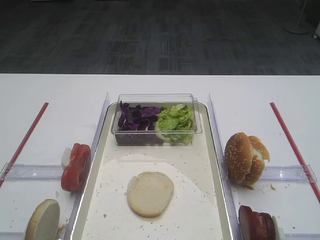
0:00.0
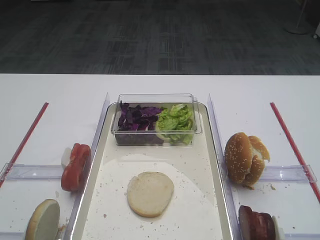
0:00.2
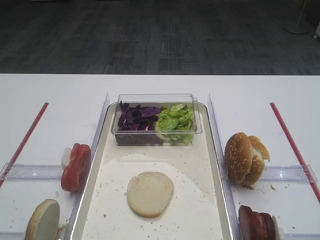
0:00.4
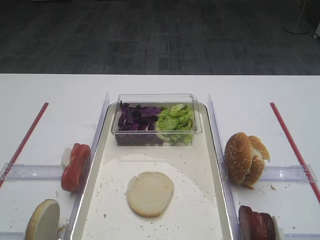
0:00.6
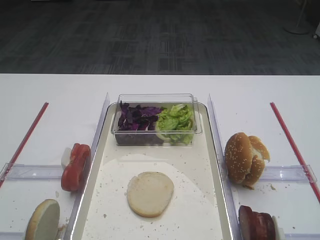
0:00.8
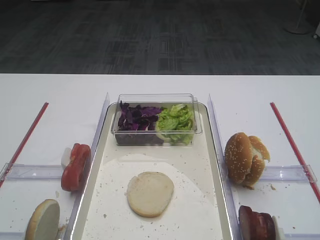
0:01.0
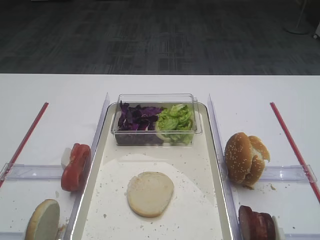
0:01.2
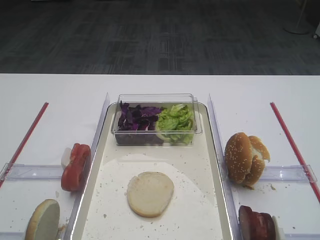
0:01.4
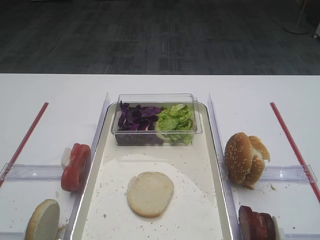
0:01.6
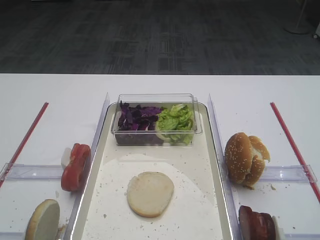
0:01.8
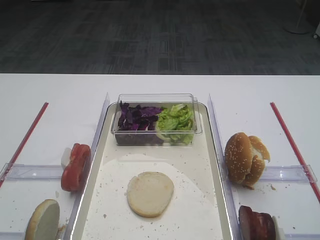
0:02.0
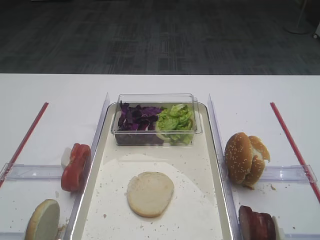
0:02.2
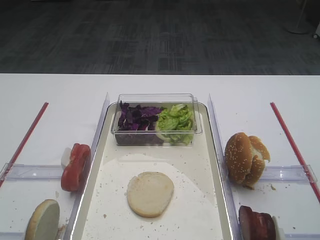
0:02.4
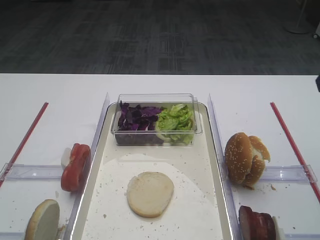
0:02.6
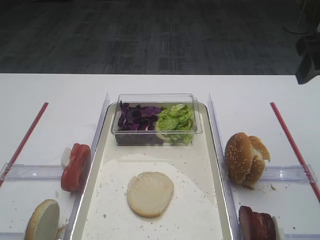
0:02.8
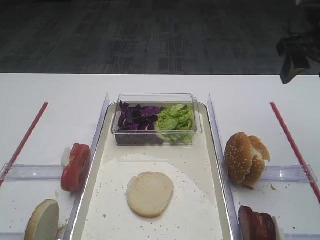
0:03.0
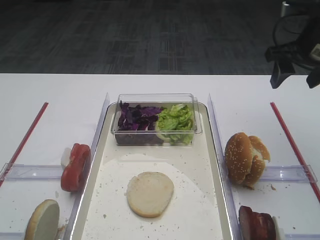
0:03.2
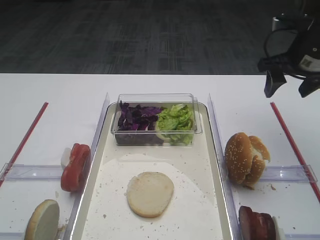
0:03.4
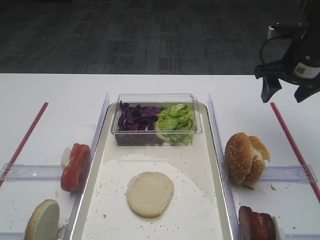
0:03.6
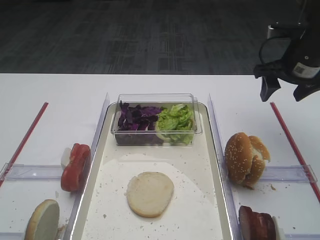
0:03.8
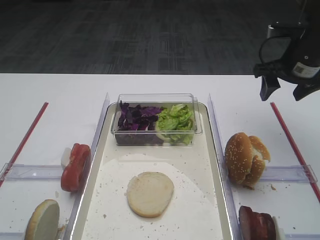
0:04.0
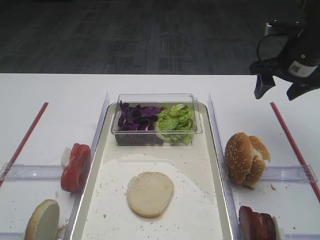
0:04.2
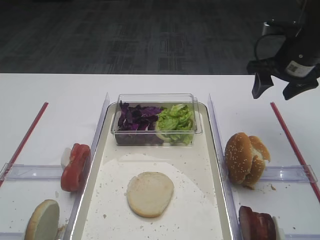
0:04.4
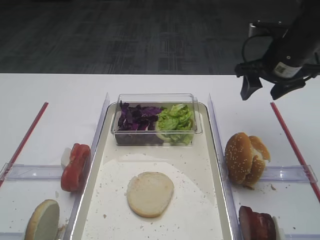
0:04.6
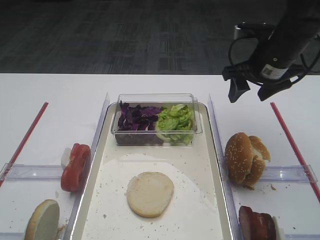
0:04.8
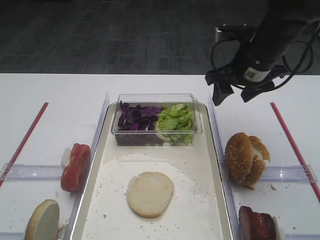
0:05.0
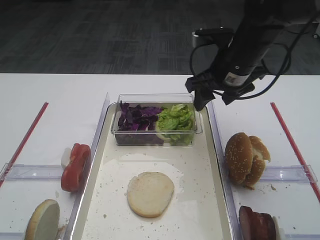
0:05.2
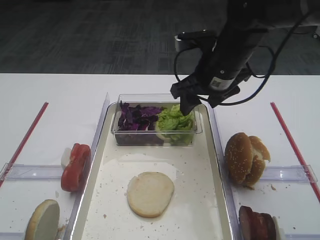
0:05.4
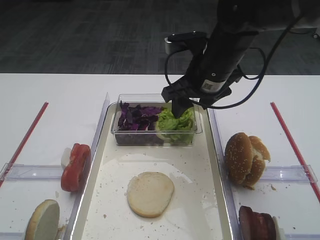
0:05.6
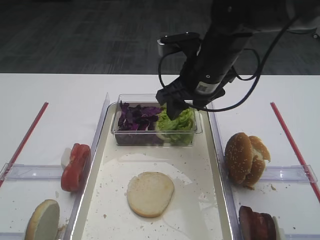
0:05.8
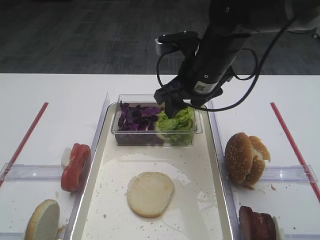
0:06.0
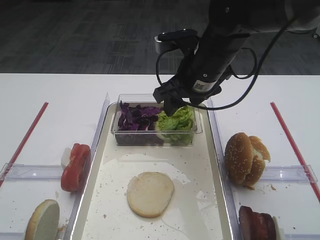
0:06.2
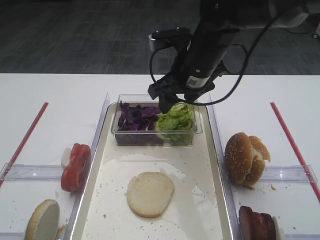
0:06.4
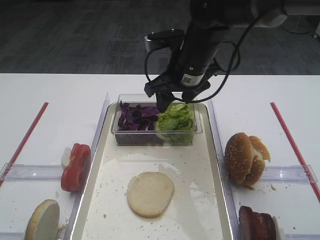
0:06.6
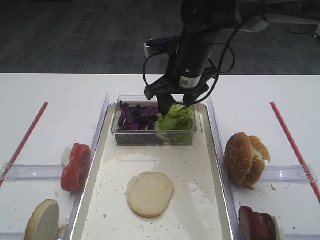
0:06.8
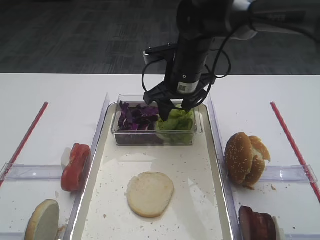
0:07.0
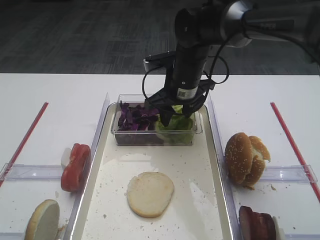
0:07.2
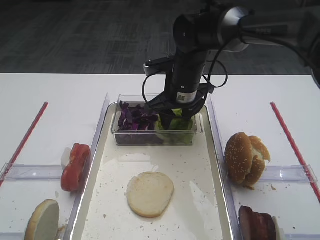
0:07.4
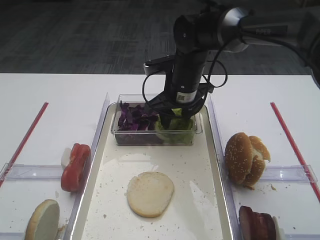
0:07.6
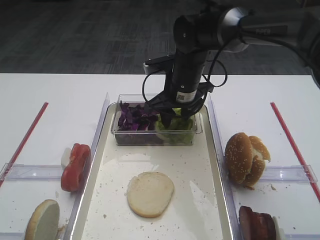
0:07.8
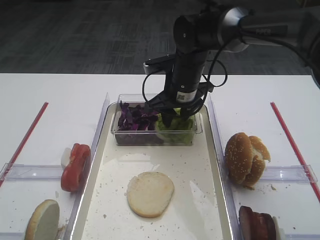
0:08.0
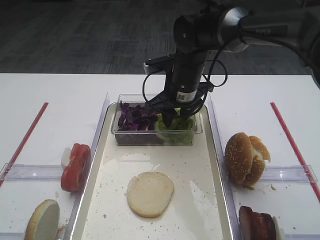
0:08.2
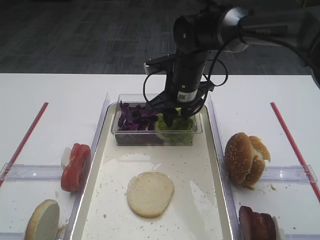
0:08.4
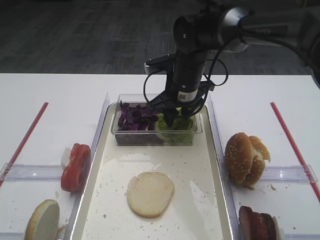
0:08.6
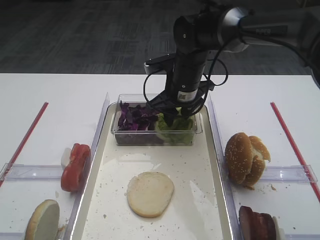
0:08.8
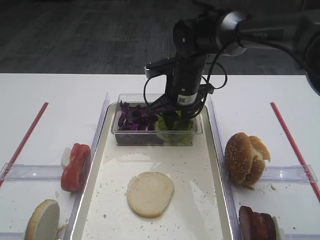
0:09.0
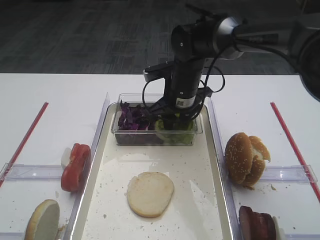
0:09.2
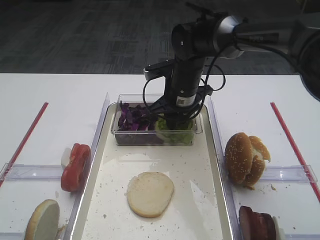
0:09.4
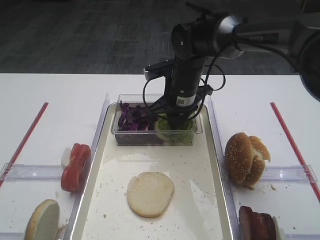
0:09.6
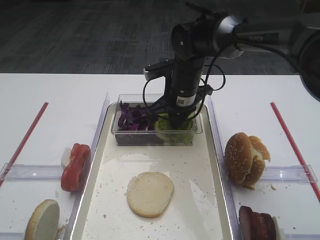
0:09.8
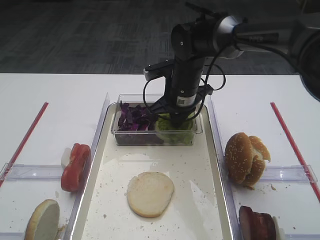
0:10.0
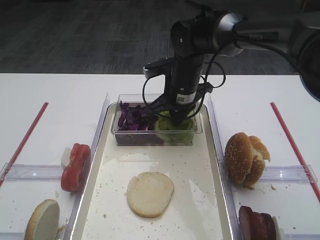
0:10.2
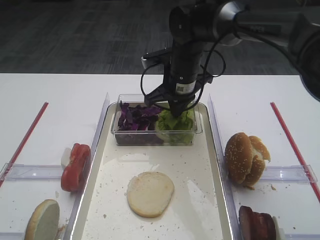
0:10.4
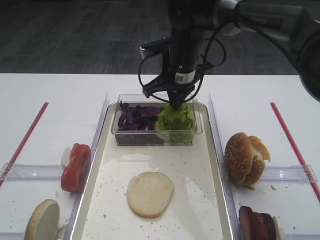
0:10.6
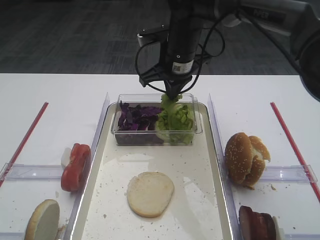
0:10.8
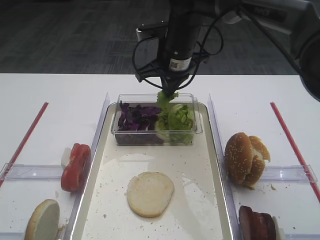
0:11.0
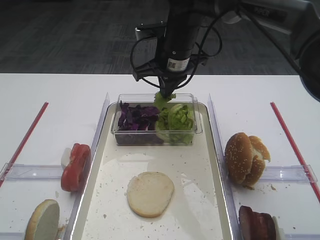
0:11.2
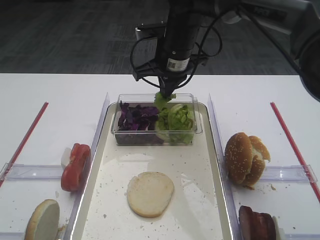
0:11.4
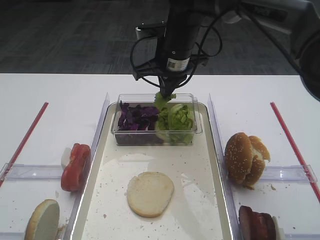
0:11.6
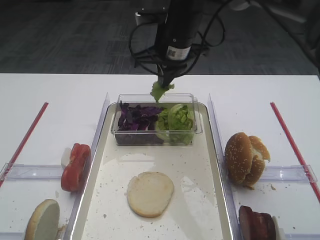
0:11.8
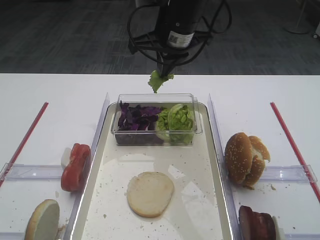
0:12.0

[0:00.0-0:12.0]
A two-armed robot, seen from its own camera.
Step, 0:00.0 to 0:11.2: Pick up the lettuce leaf with the right gripper.
0:01.6 to 0:03.0: The right gripper moves forward, roughly 30 cm.
0:03.0 to 0:04.4: The right gripper goes approximately 10 cm downward and forward.
0:04.4 to 0:06.0: The right gripper travels to the left by about 20 cm.
0:06.0 to 0:07.6: The right gripper shifts approximately 10 cm forward and downward.
0:07.6 to 0:09.0: Neither gripper changes place.
0:09.0 to 0:10.4: The right gripper closes up.
0:10.4 to 0:12.0: The right gripper moves upward, some 10 cm.

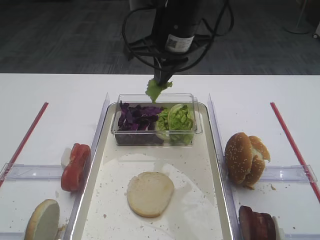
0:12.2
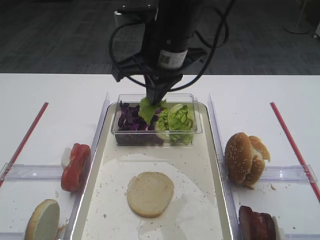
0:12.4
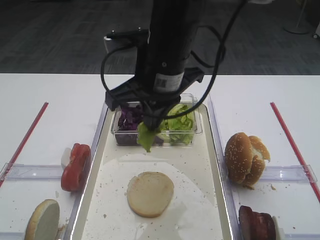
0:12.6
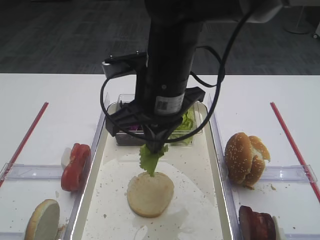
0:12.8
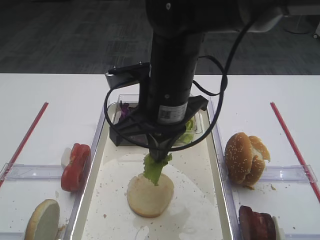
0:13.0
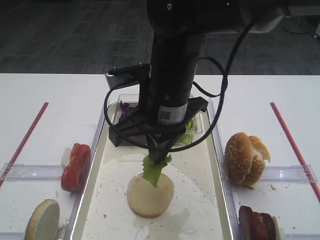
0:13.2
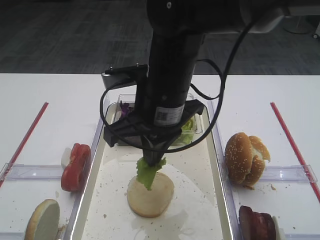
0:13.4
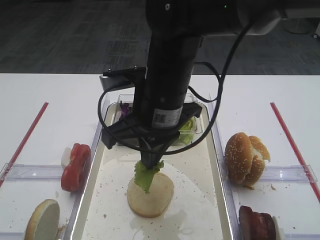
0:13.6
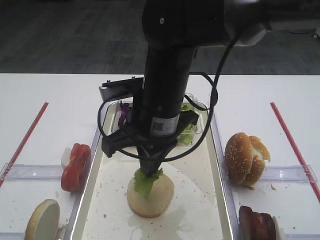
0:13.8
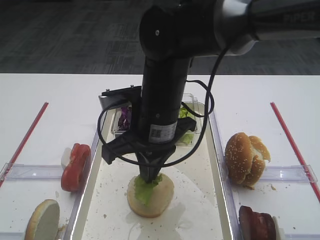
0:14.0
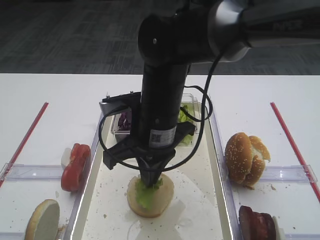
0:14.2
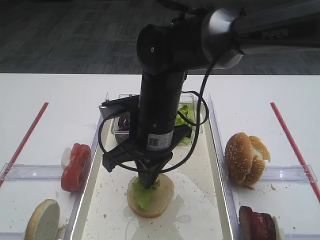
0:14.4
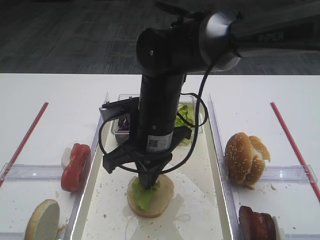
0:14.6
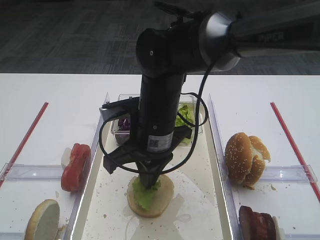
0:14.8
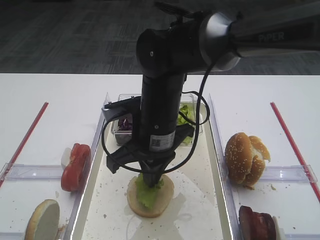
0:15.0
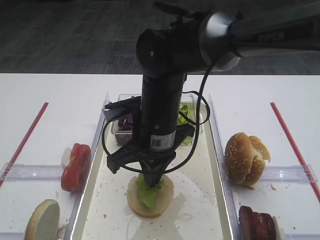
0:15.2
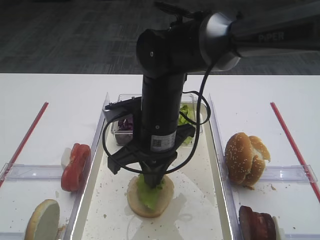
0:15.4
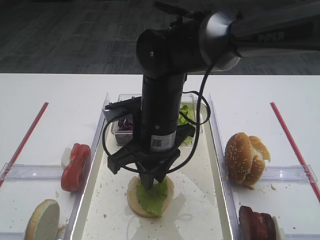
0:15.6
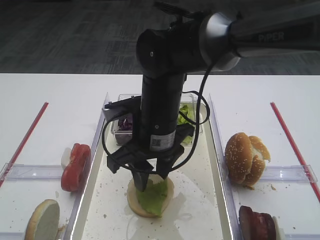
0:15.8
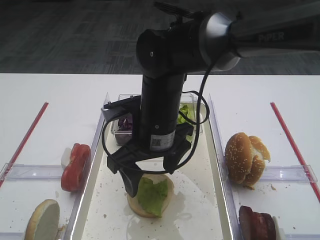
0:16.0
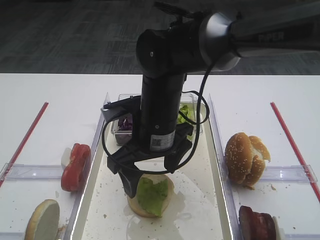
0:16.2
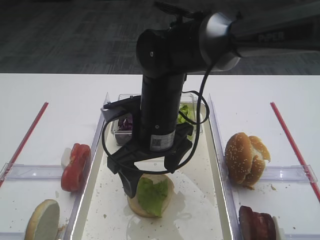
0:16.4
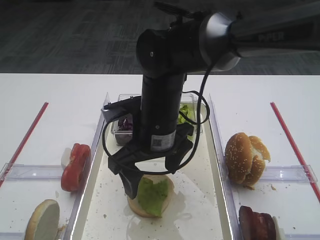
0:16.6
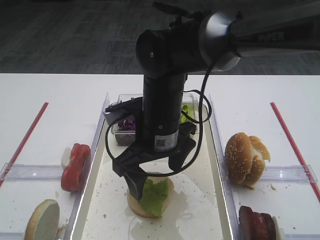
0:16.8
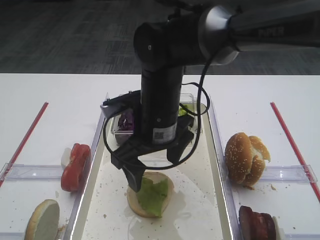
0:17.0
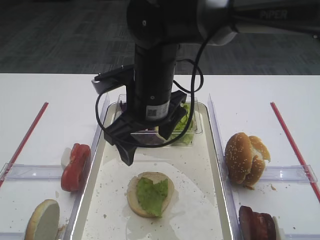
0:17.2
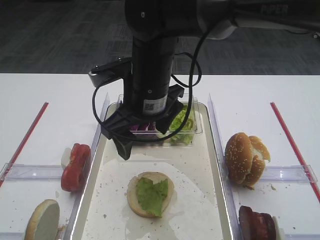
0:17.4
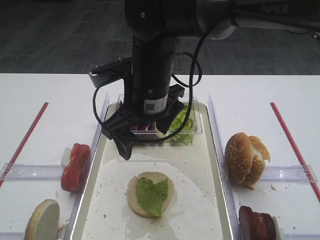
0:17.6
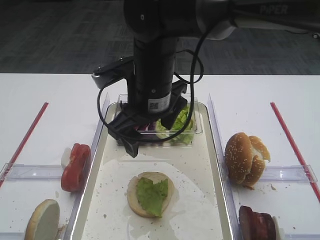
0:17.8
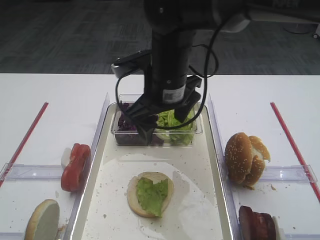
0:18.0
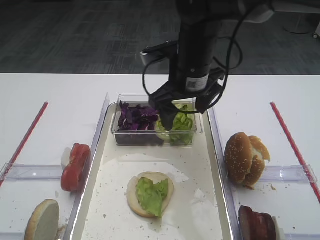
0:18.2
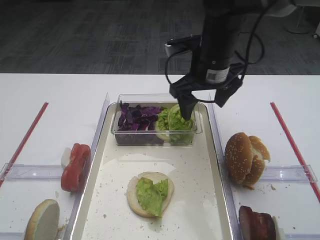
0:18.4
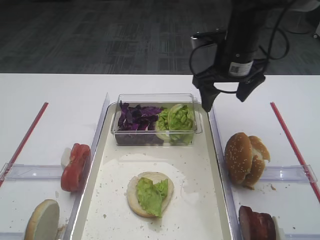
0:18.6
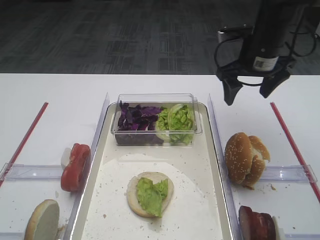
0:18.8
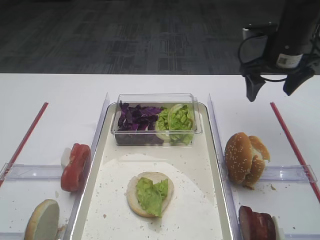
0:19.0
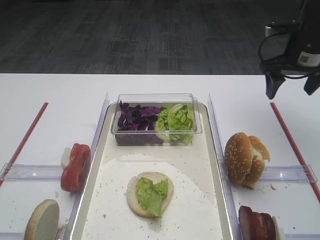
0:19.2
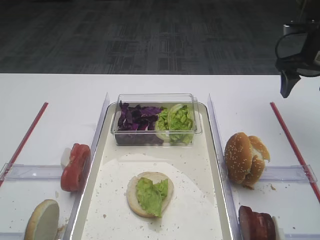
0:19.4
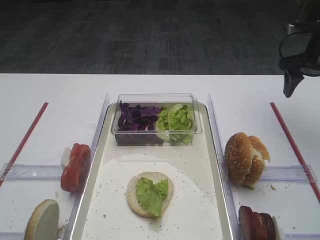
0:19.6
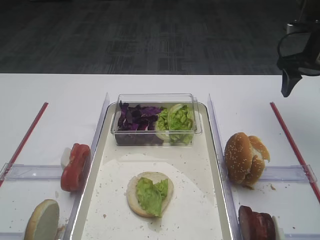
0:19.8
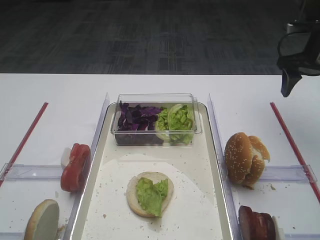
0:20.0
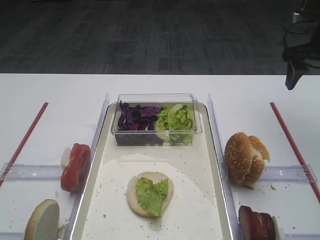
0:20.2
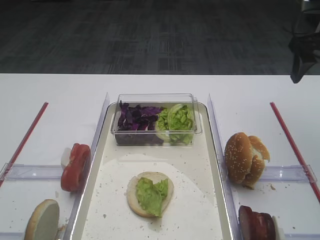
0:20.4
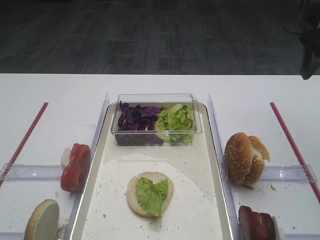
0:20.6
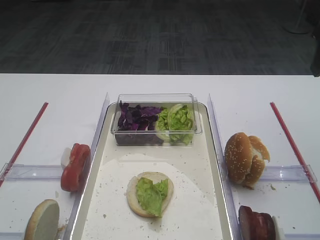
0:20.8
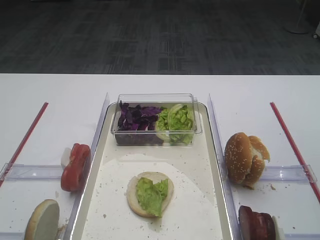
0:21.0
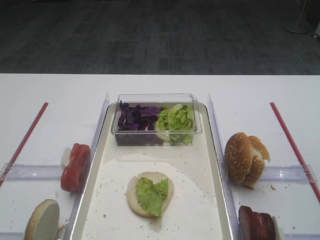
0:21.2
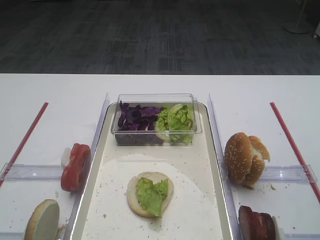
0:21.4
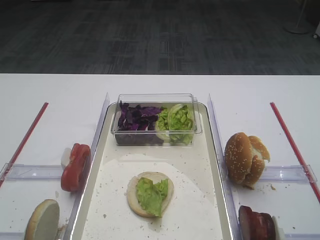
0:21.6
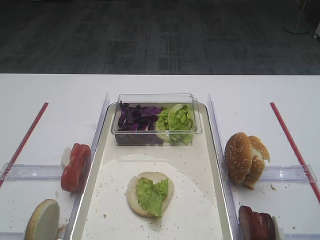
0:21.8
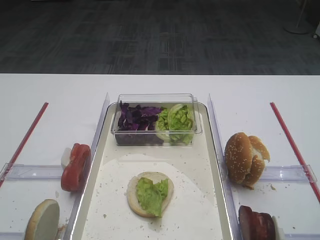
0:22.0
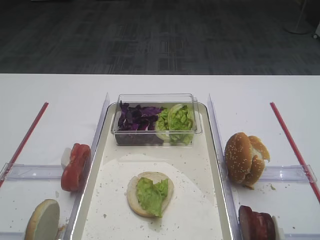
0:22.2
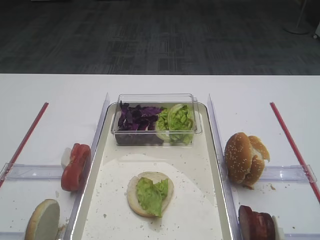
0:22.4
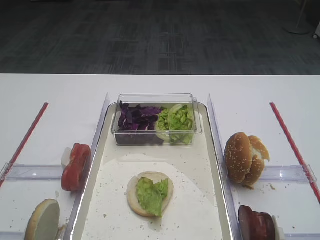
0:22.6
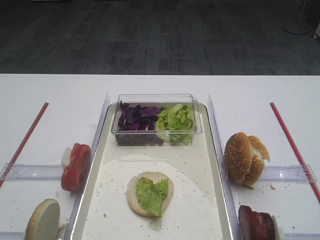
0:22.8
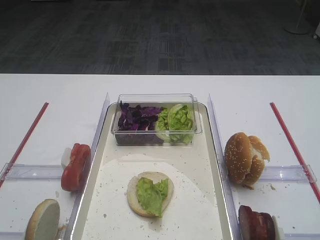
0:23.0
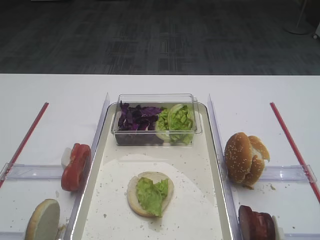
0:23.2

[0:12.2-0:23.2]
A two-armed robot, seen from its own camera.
Step, 0:12.2 to 0:16.8: Place the lettuce leaf on the bread slice with the right gripper.
0:12.2 to 0:13.8: The right gripper heads backward and downward, covering about 15 cm.
0:13.8 to 0:15.4: The grippers make only small movements.
0:15.4 to 0:17.0: The right gripper opens its fingers.
0:17.0 to 0:18.4: The right gripper is displaced to the right and forward by some 15 cm.
0:18.4 to 0:20.0: The right gripper travels to the right by approximately 20 cm.
0:20.0 to 0:21.6: The right gripper is displaced backward by about 25 cm.
